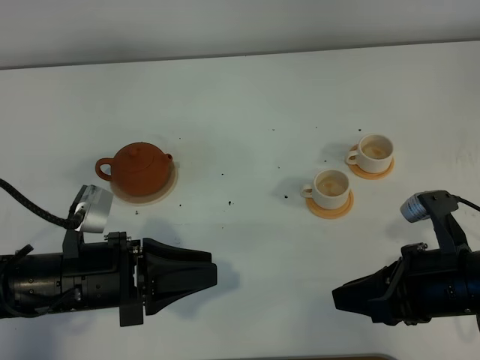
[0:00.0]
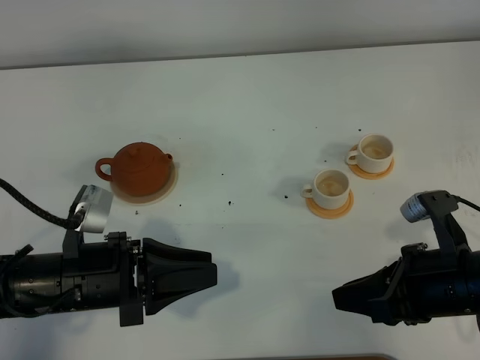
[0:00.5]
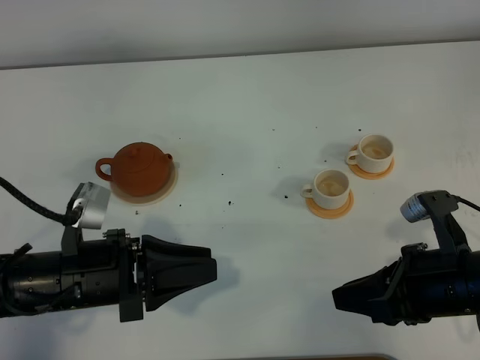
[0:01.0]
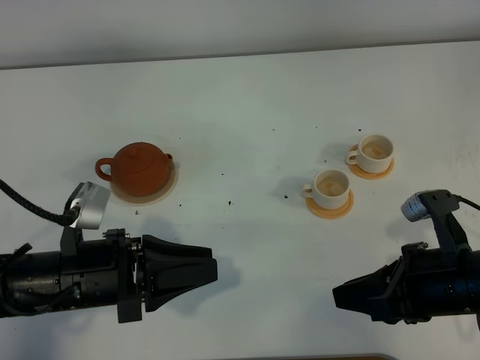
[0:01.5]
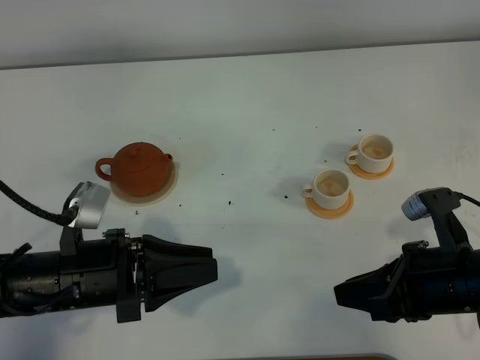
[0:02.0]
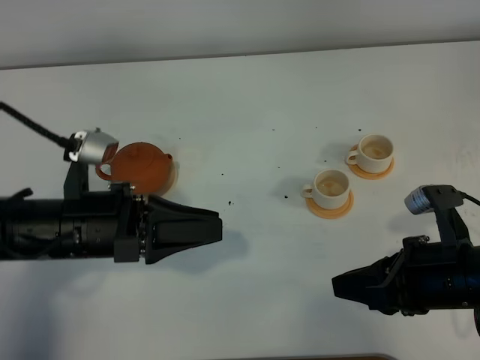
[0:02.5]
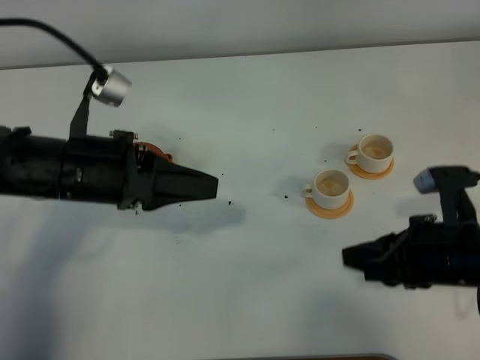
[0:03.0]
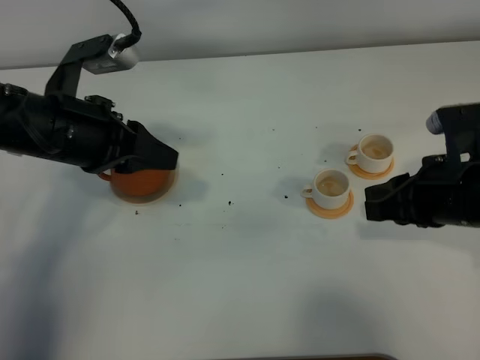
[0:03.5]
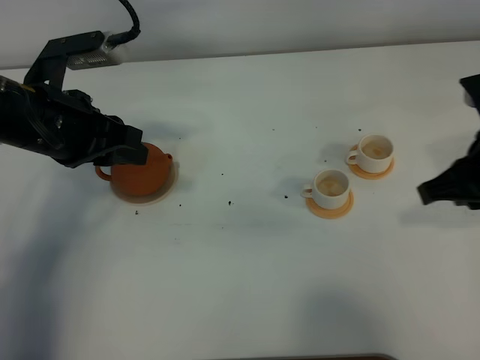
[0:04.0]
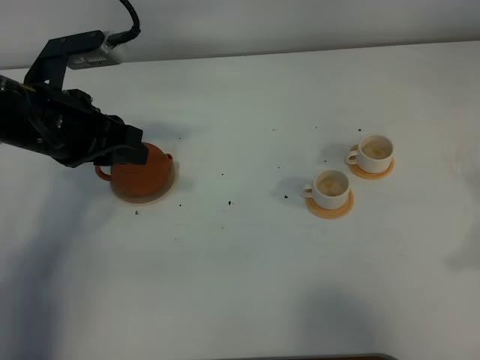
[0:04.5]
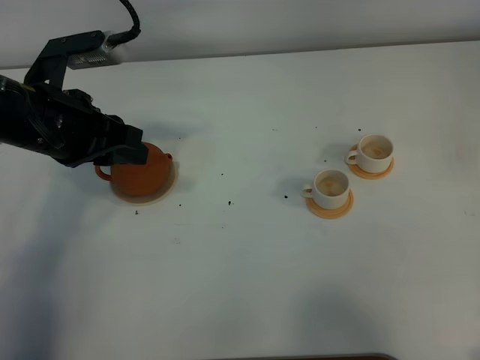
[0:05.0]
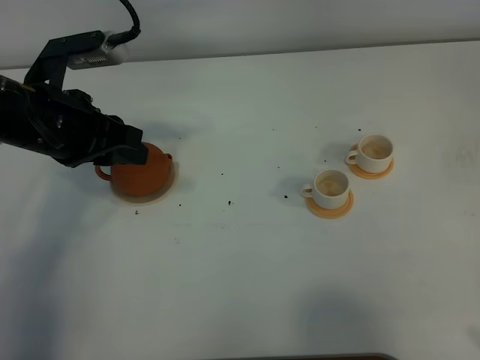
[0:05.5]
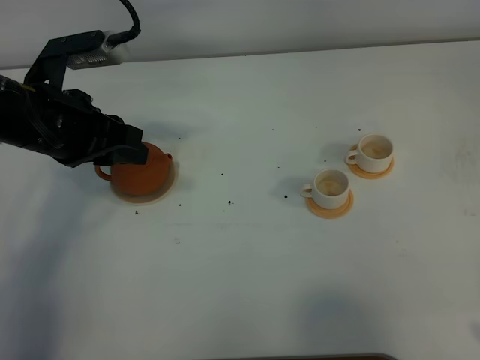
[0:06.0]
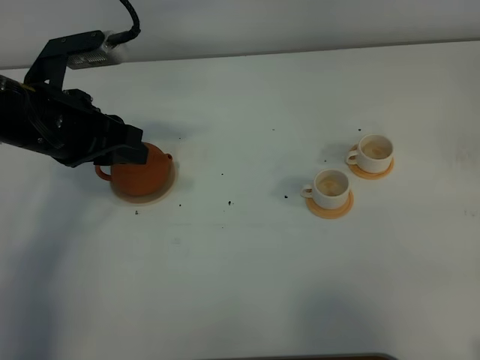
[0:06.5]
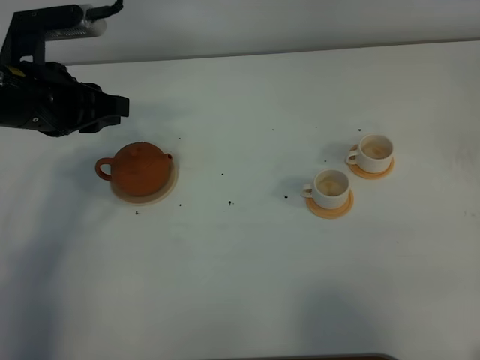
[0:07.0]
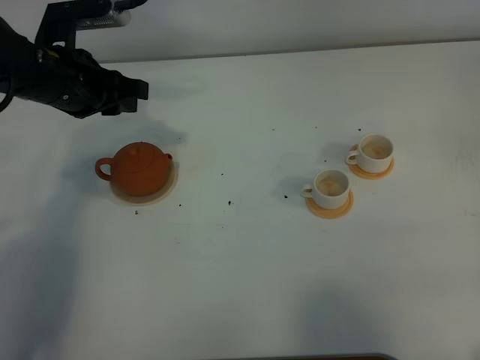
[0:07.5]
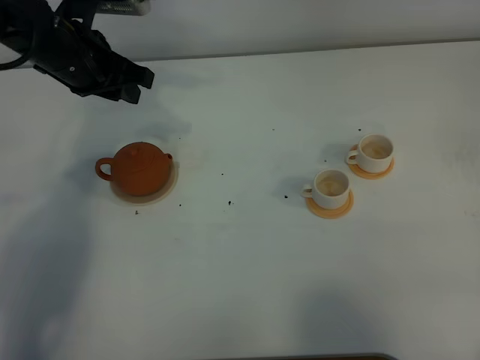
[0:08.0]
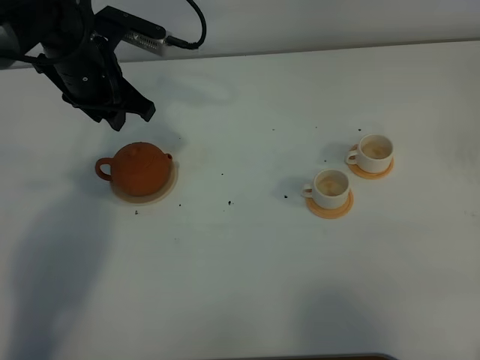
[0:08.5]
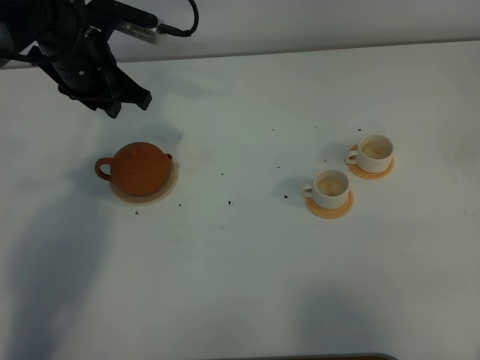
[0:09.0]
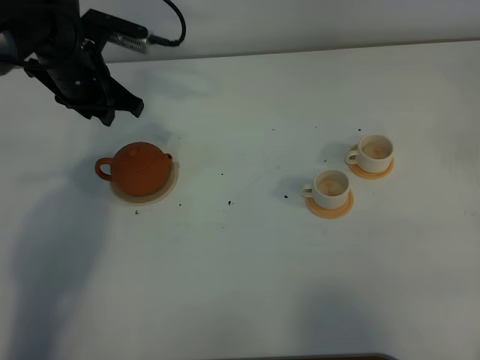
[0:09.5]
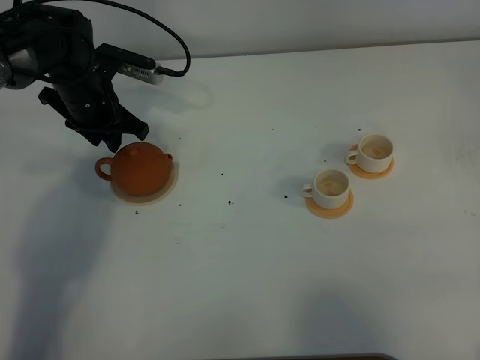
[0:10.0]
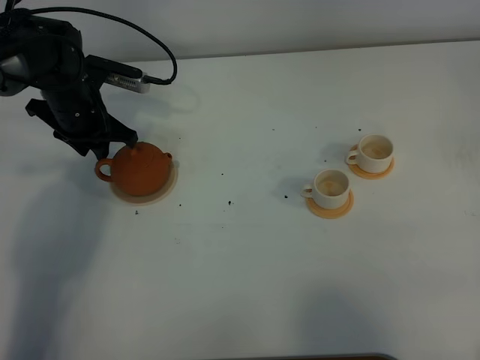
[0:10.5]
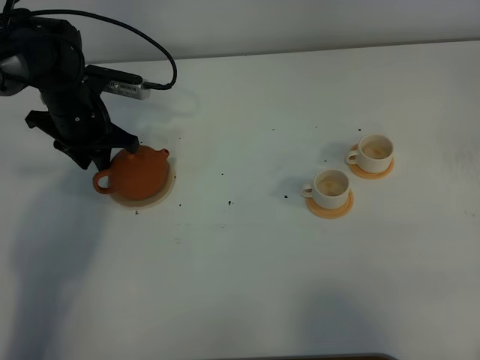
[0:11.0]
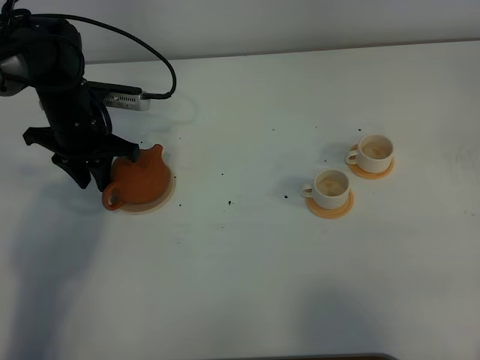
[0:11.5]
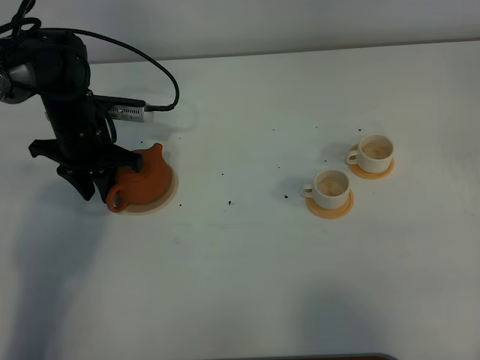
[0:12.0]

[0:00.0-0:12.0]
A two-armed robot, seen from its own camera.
Task of the whole recording: grasp the brown teapot and pour the tea into the two white teacups one by one, put the brown teapot back in its original place.
0.0 to 2.0 s: The two grippers keep their place.
2.0 to 4.0 s: The right gripper shifts approximately 10 cm upward and forward. Meanwhile the left gripper shifts roughly 15 cm forward and upward.
4.0 to 6.0 s: The right gripper heads backward, covering about 20 cm.
6.0 to 8.0 s: The left gripper heads forward, covering about 10 cm.
8.0 to 10.0 s: The left gripper goes approximately 10 cm downward.

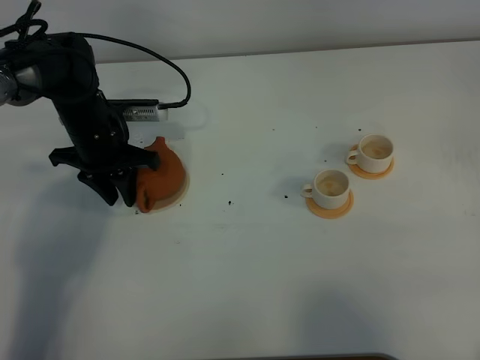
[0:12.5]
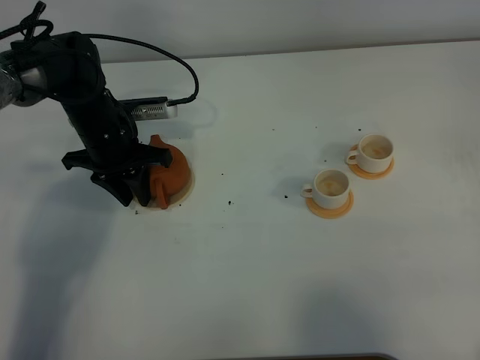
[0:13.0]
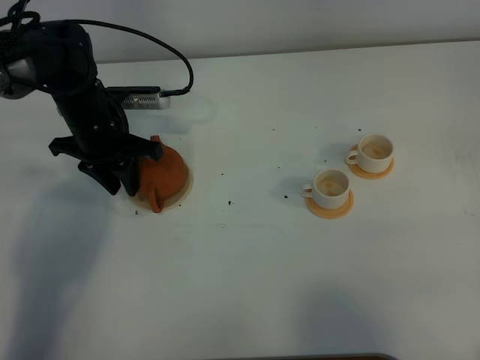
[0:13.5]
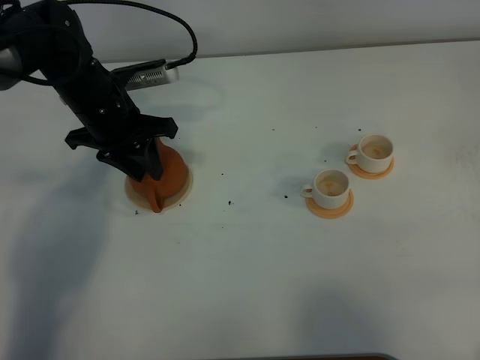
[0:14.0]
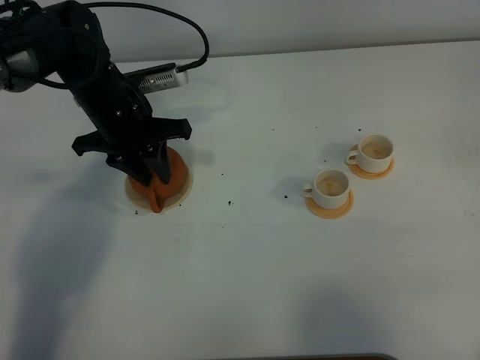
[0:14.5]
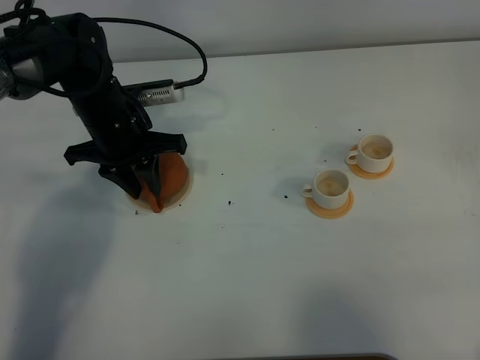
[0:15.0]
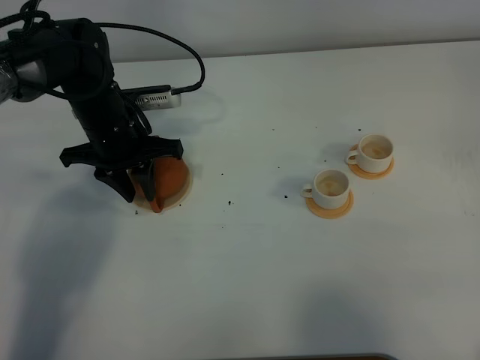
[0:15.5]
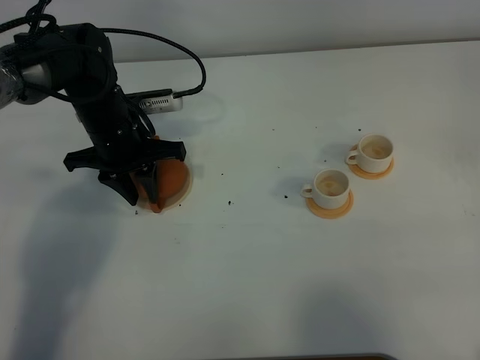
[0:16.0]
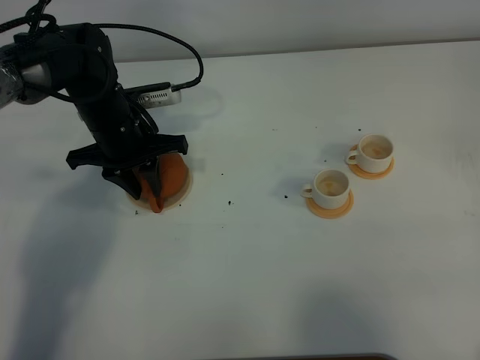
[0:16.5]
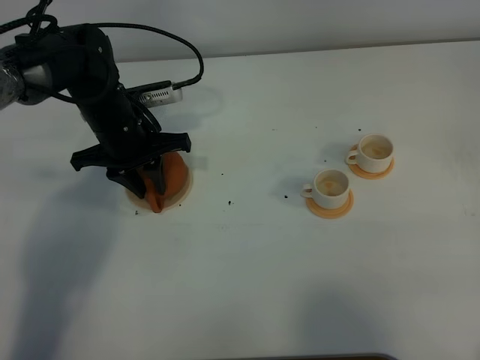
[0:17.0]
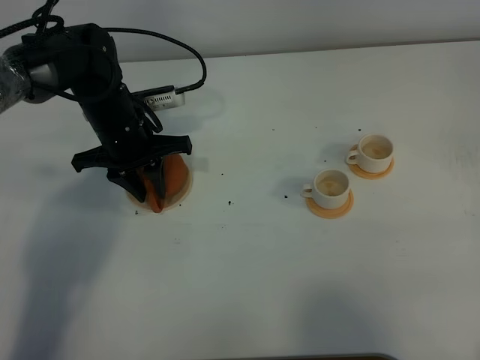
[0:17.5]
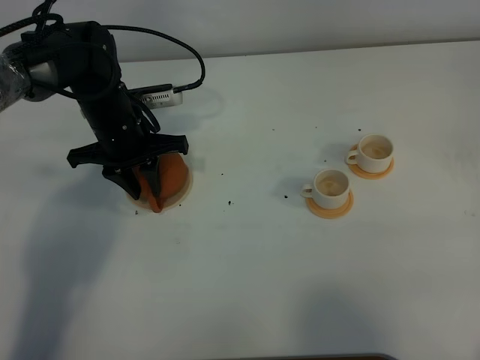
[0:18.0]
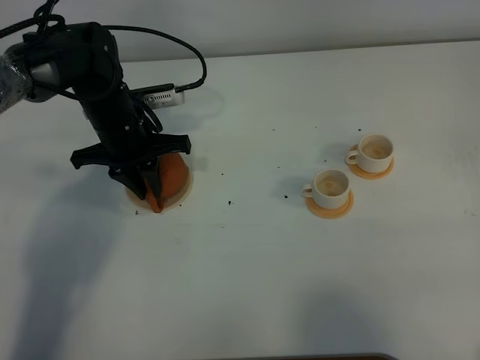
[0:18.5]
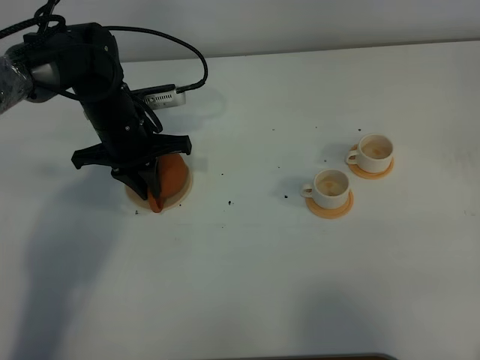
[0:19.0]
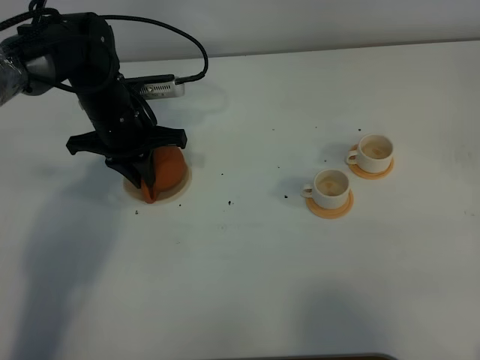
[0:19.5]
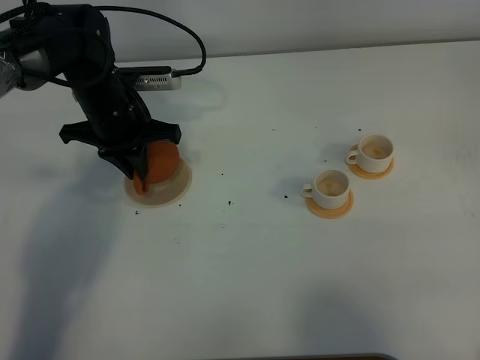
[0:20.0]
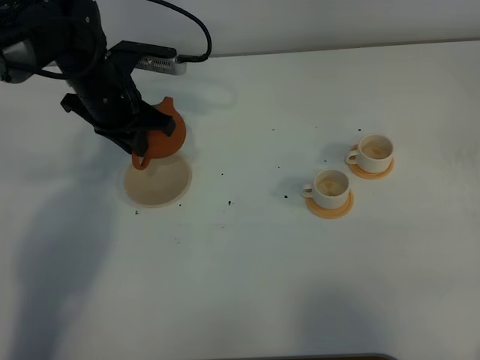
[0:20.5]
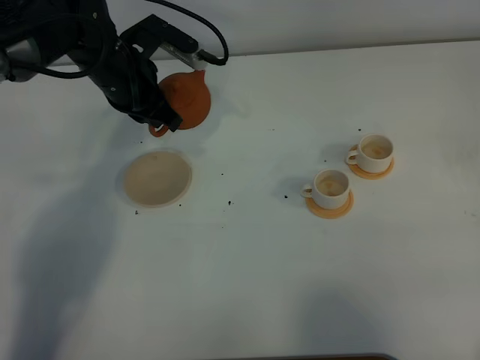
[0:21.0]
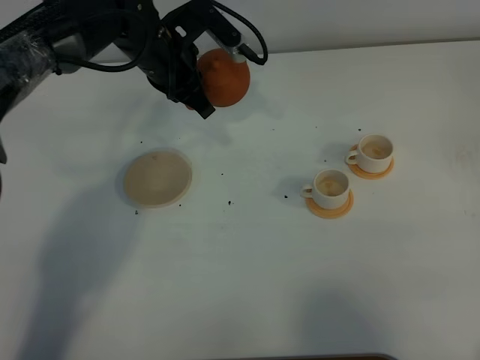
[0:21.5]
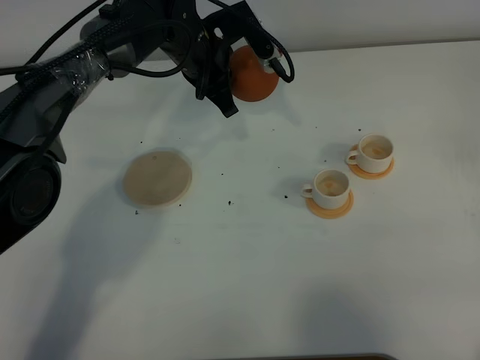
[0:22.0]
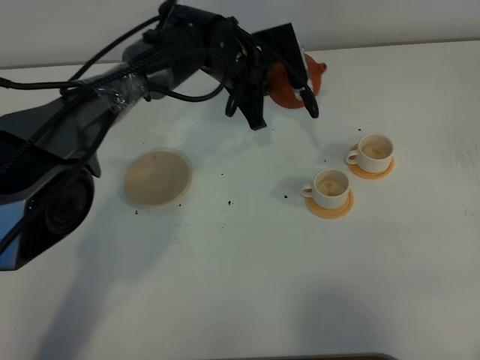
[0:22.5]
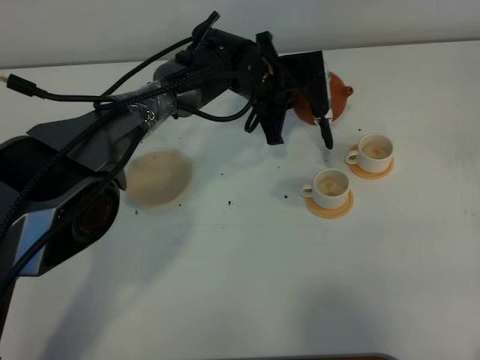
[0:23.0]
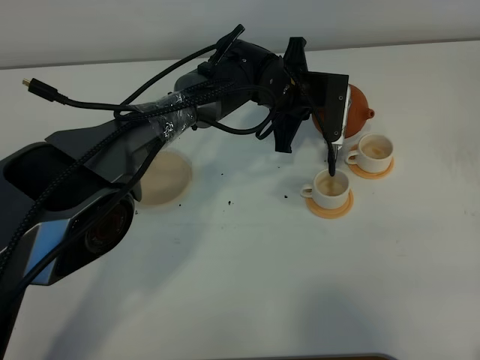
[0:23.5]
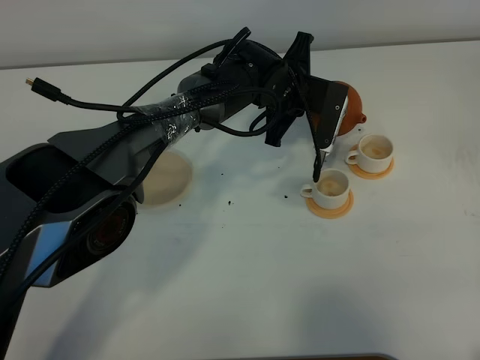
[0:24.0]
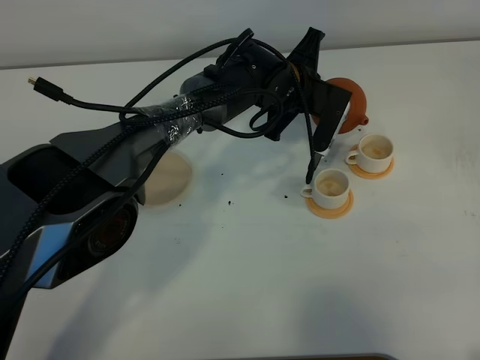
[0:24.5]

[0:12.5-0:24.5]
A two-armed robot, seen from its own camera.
Task of the whole recording: grasp the brown teapot and pour the tea into the two white teacups one by one, put the brown teapot back in its original place.
Step, 12.5 to 20.0 s: Pick up the teapot with the left gripper.
12.5 to 14.5 s: The left gripper is displaced upward by roughly 5 cm.
14.5 to 18.5 s: The grippers stay close to where they were, moving slightly.
18.5 to 20.5 s: The left gripper travels upward by about 5 cm.
20.5 to 22.5 s: The left gripper is displaced to the right by about 15 cm.
22.5 to 24.5 s: The left gripper moves to the right, some 5 cm.

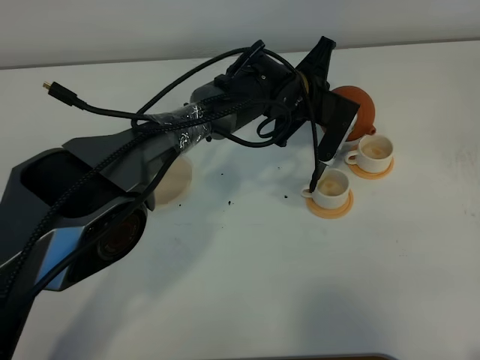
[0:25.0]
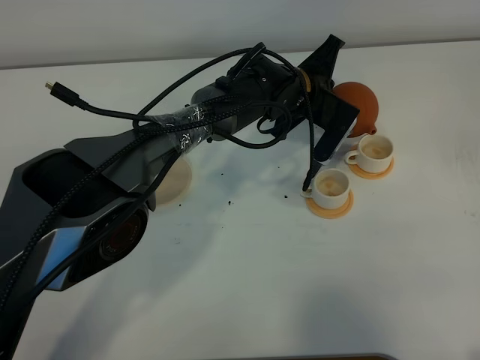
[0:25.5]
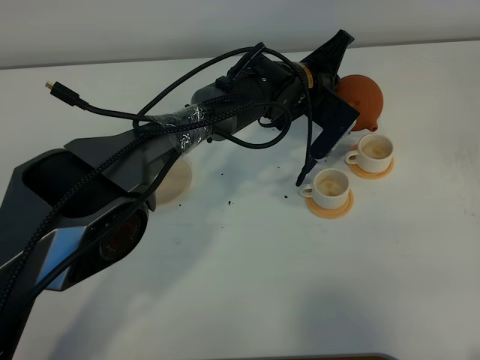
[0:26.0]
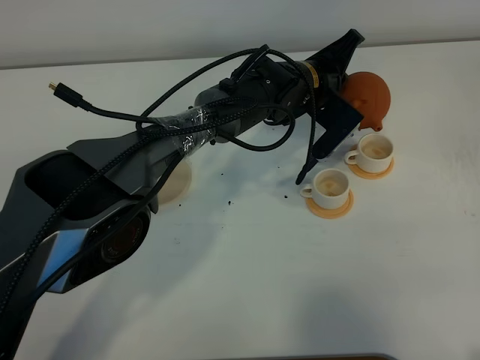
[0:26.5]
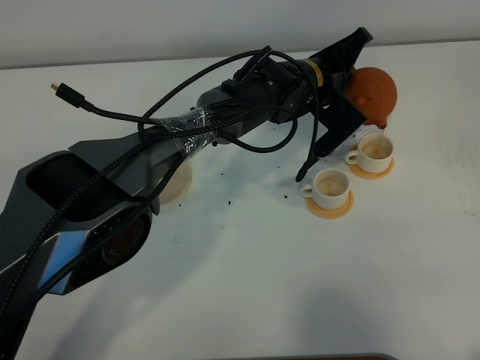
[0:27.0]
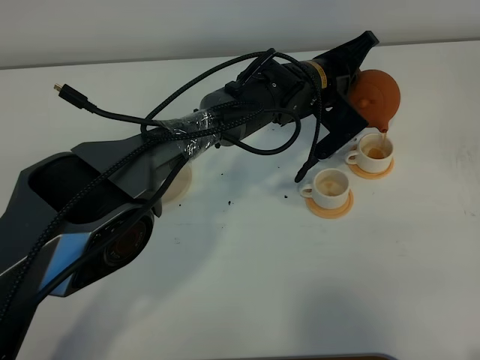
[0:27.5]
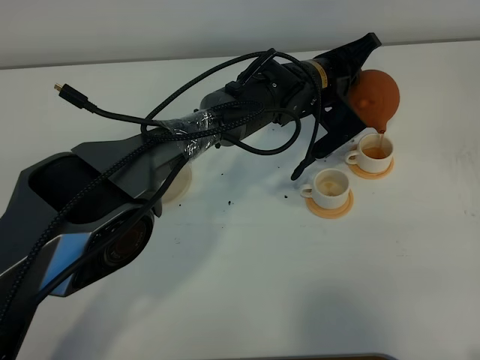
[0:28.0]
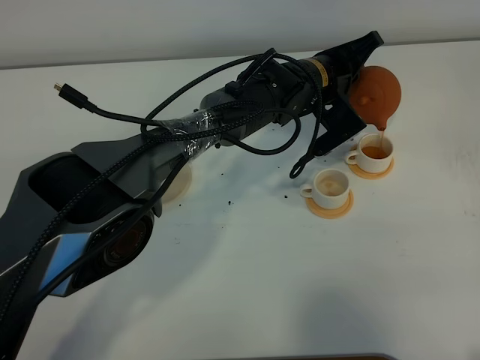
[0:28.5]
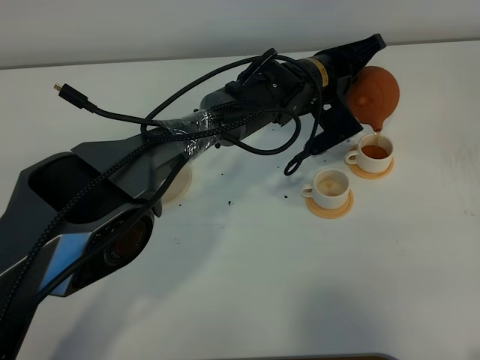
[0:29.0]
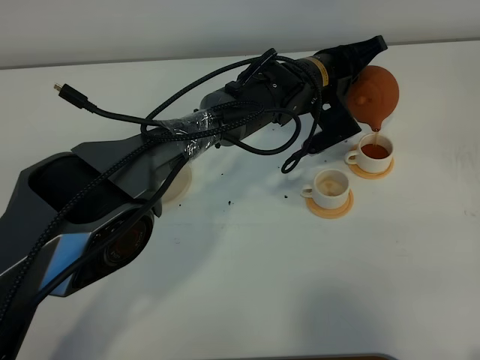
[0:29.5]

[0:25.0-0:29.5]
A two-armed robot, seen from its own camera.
Task of the whole recording: grasp the brown teapot and pour the tea into the two white teacups one by one, put the brown teapot back in its original place.
27.0 to 29.5 s: There are only small adjustments of the grippers.
